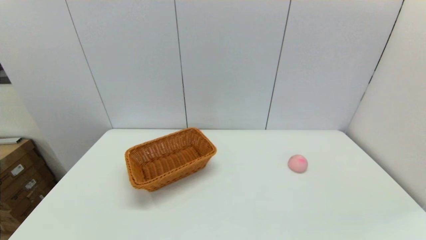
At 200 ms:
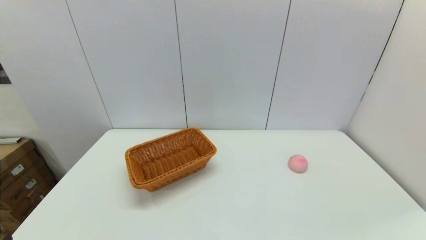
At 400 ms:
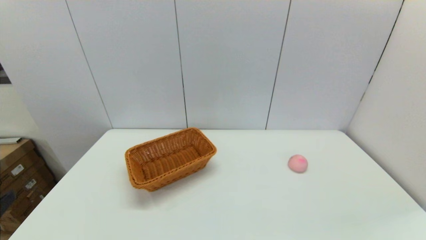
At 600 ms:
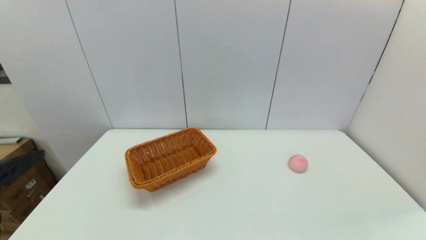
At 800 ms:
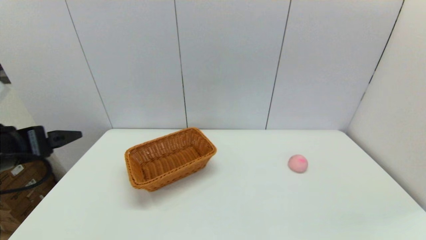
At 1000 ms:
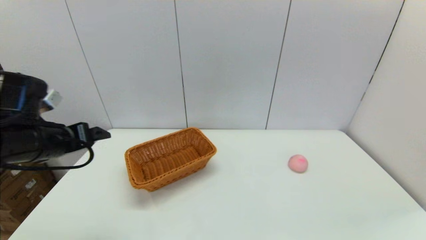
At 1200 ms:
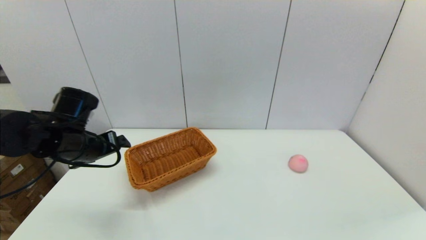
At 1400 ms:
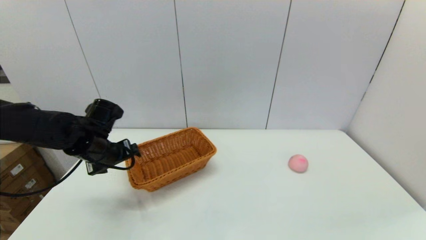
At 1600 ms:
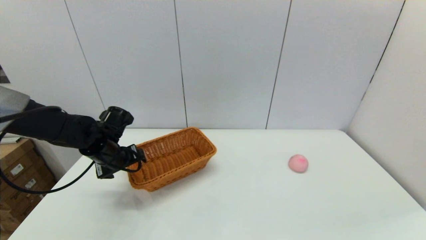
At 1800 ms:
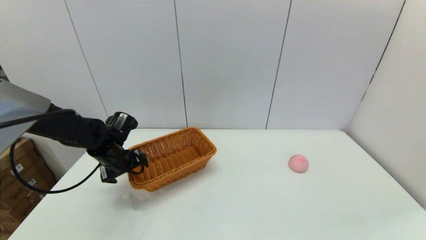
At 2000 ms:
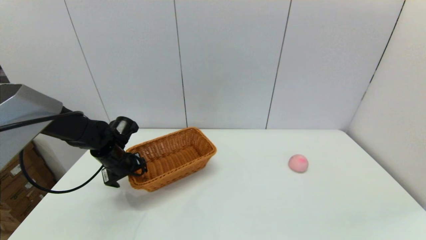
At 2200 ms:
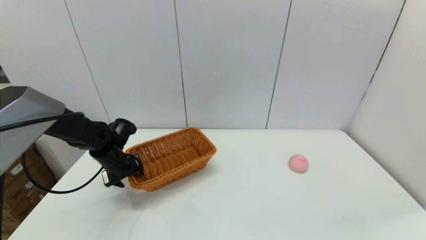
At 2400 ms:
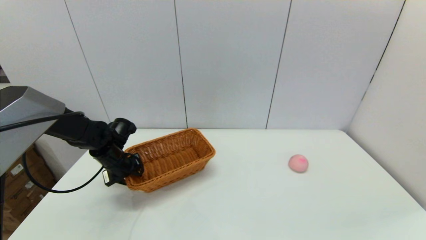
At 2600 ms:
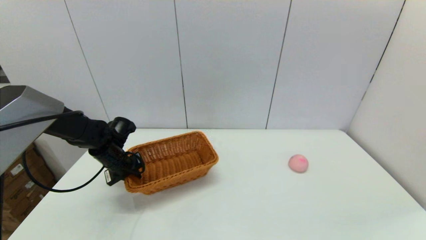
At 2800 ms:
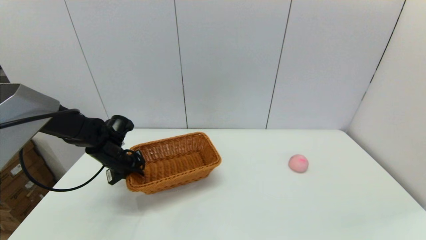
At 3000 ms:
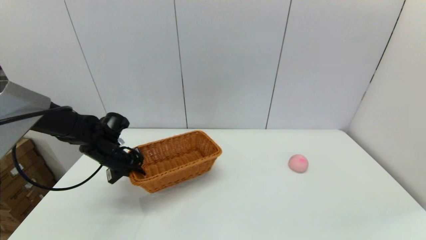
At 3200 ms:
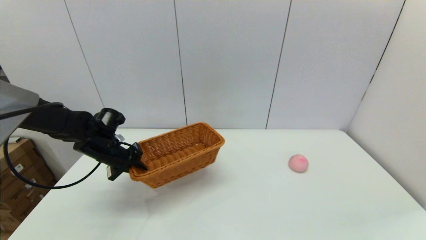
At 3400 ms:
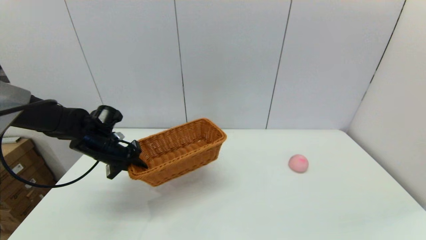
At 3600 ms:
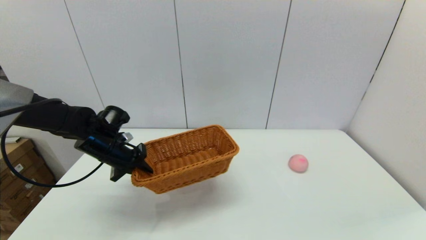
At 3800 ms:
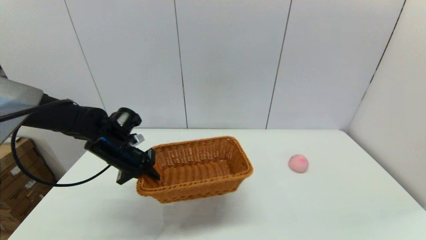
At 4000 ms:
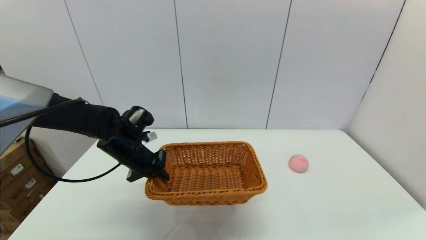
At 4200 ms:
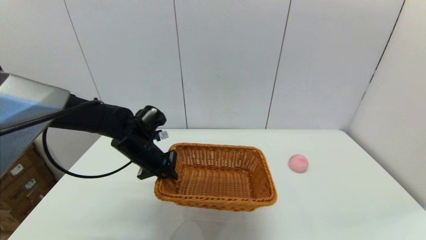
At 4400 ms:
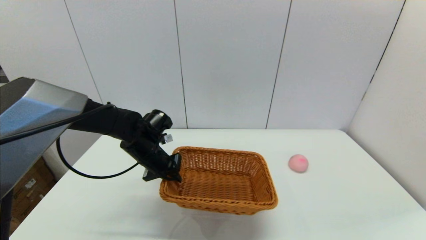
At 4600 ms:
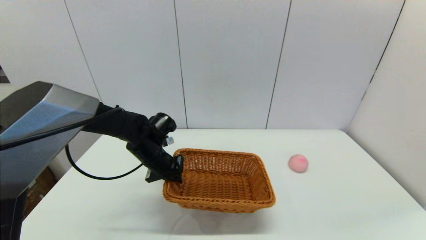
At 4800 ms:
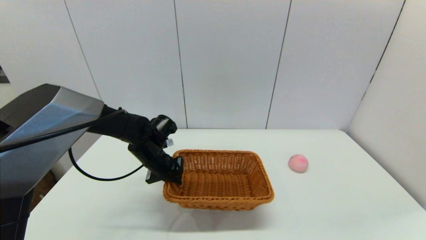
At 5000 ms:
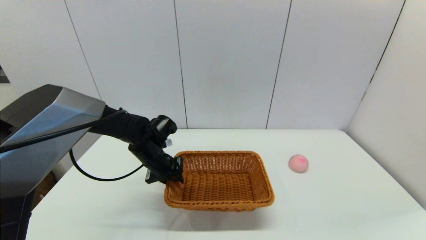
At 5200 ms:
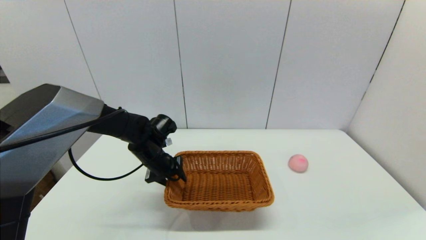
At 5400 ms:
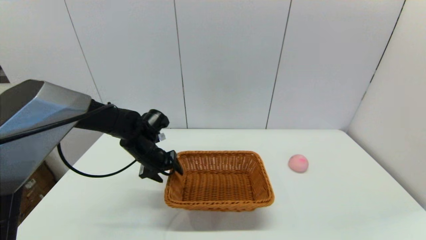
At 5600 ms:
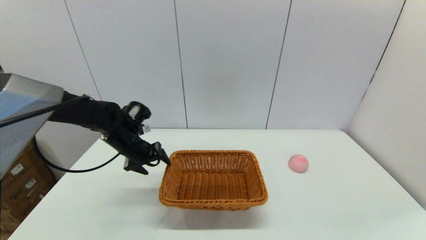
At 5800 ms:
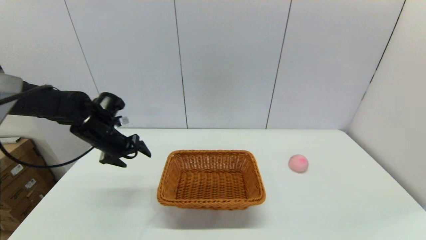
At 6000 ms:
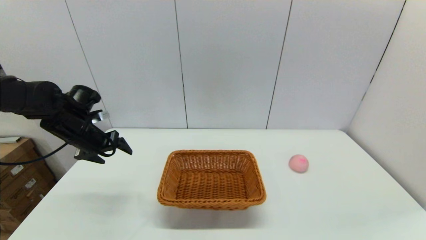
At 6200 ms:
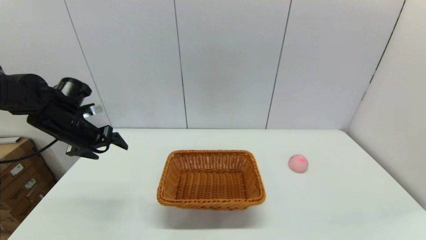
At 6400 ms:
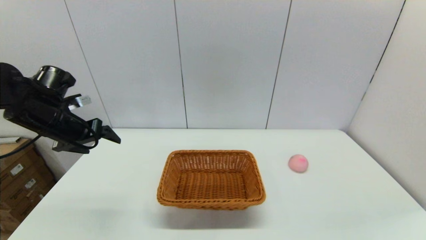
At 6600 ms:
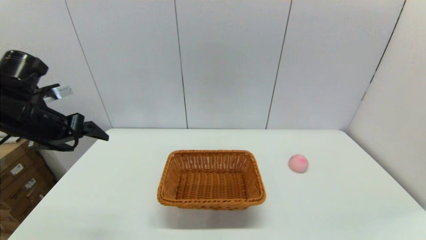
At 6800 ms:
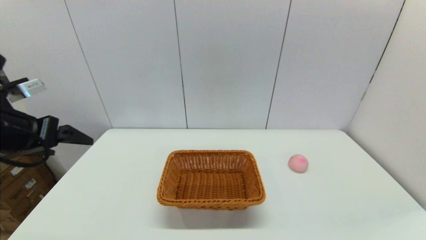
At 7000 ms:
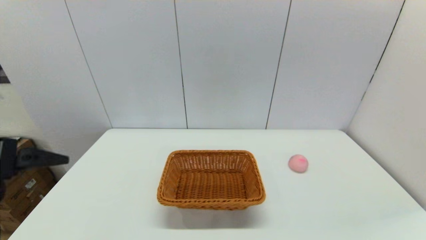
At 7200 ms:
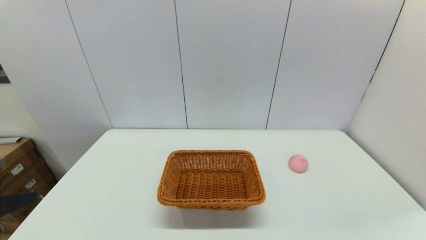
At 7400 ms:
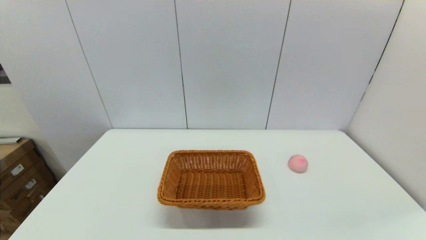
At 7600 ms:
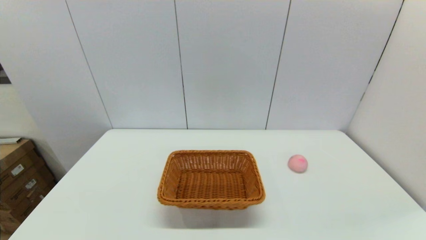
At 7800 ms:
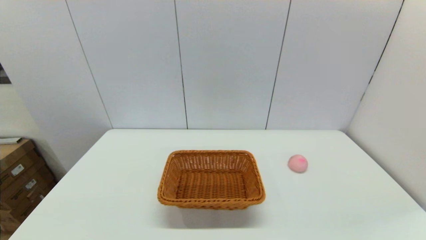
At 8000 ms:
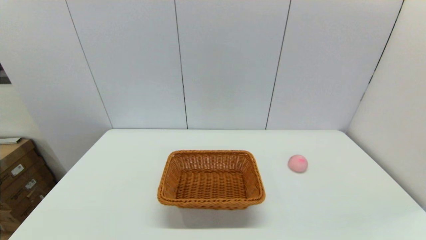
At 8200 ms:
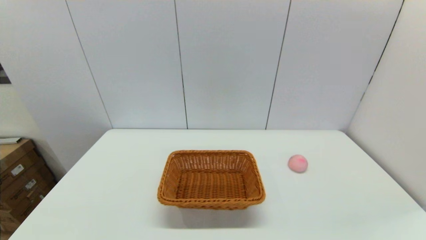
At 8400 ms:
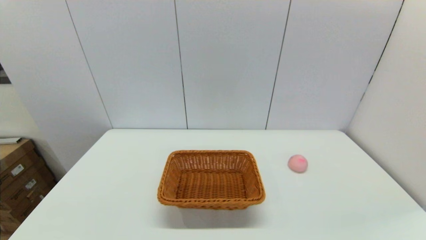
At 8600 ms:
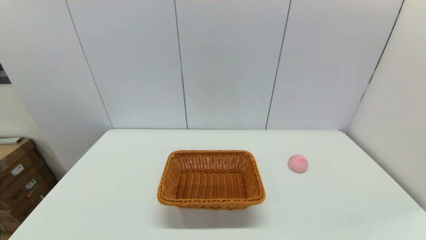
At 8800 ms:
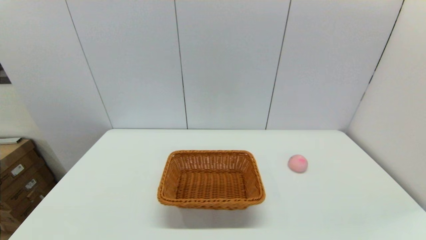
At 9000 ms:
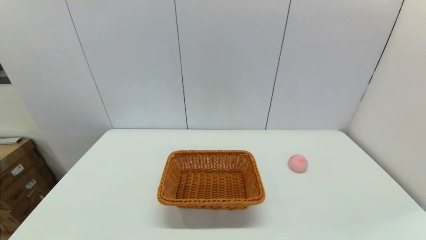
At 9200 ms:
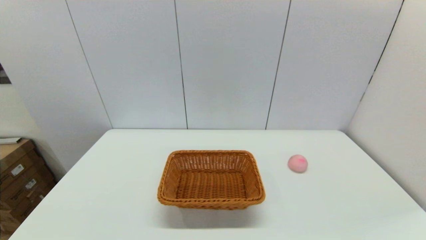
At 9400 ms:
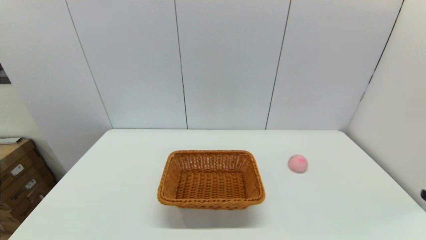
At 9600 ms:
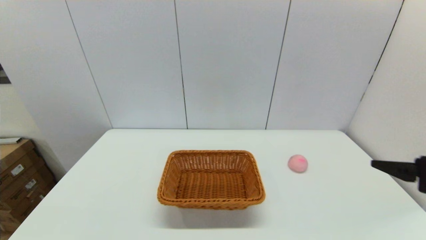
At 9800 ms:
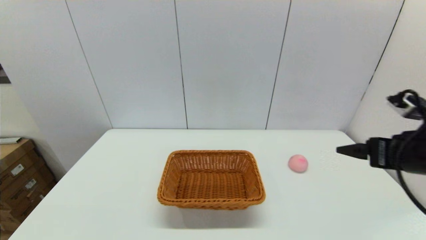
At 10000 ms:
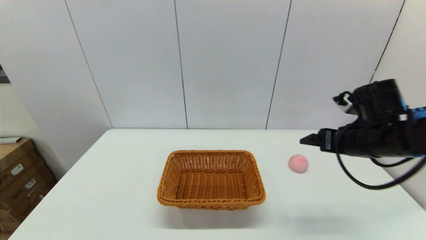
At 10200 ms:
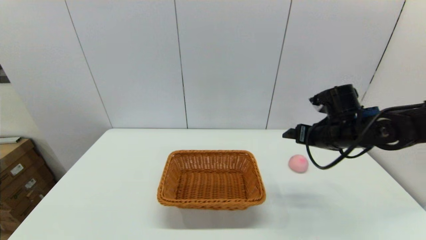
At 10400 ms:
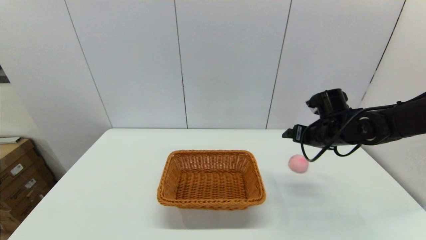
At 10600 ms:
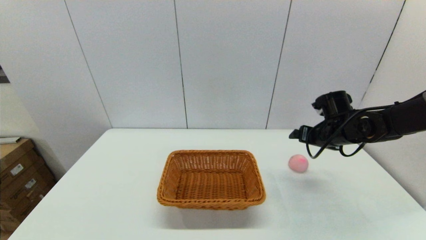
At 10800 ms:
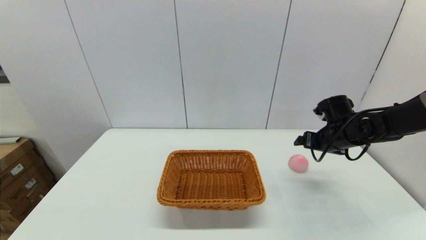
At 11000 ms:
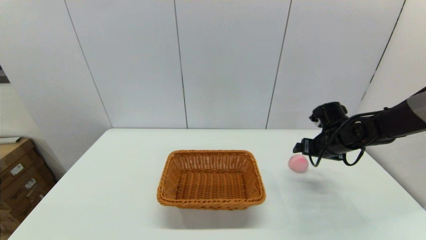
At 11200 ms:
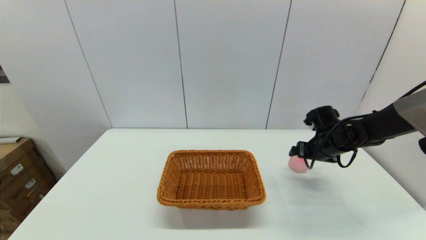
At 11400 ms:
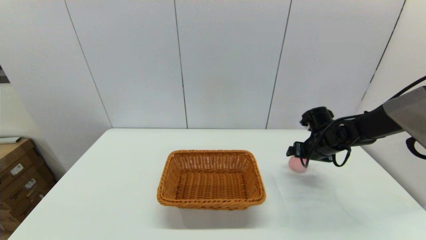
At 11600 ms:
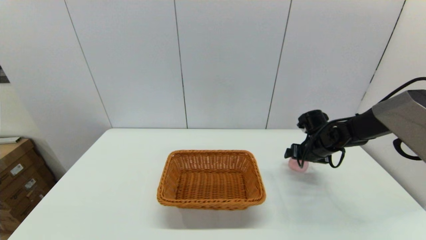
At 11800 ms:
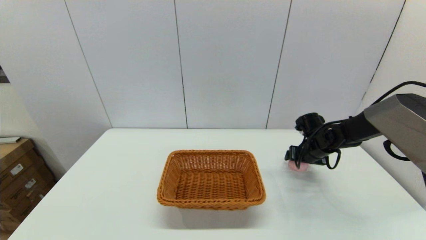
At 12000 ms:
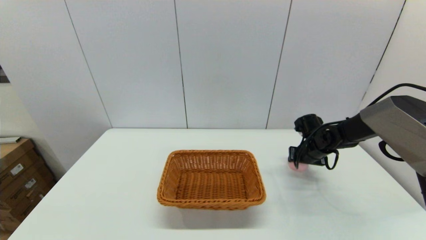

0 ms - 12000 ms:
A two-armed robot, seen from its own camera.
Step, 0 ms - 2600 ms: Grasp the light basket with the left gripper.
Step, 2800 ms - 5200 ms: Place the light basket on the middle of the table with the left gripper.
0 ms - 1600 ms: The left gripper goes some 35 cm forward.
1600 ms - 3000 ms: The left gripper closes up.
3000 ms - 4400 ms: The left gripper travels to the right by roughly 10 cm.
4400 ms - 6000 ms: The left gripper is displaced to the left and upward by approximately 15 cm, and opens up.
6000 ms - 7600 ms: The left gripper travels backward by about 35 cm.
9000 ms - 10400 ms: The right gripper shifts roughly 40 cm forward.
10400 ms - 12000 ms: The right gripper travels downward and forward by approximately 10 cm, and closes its fingers.

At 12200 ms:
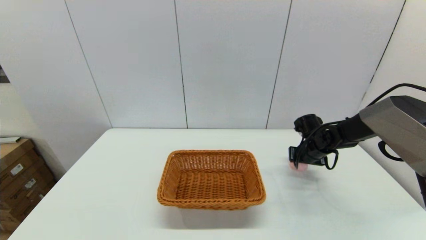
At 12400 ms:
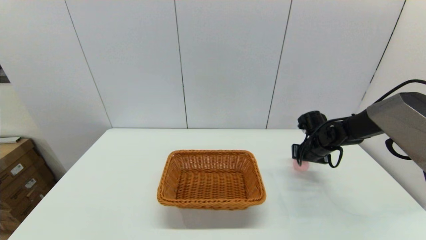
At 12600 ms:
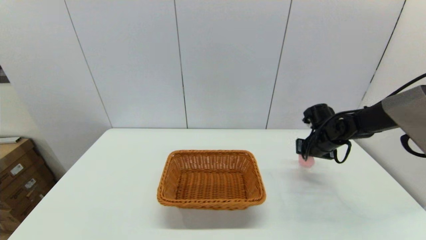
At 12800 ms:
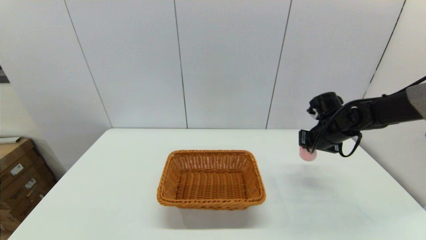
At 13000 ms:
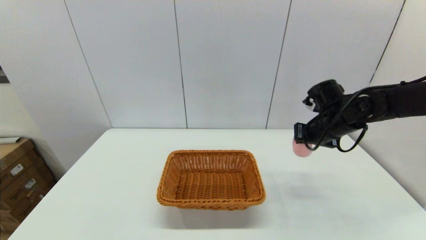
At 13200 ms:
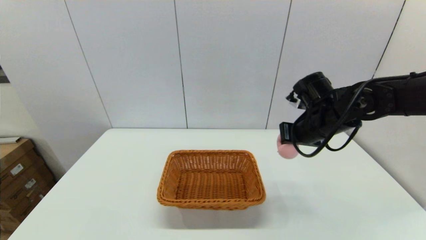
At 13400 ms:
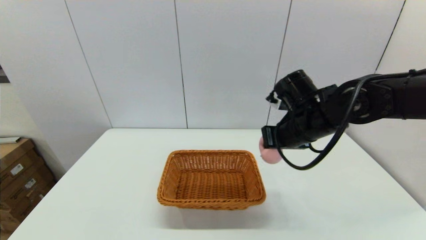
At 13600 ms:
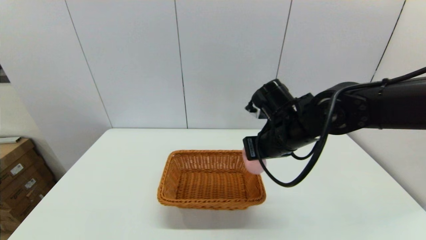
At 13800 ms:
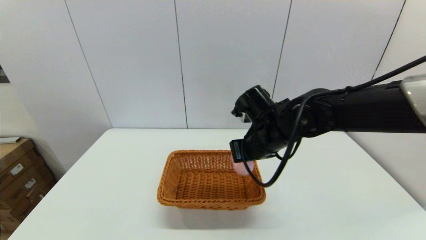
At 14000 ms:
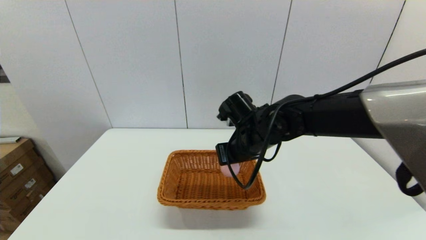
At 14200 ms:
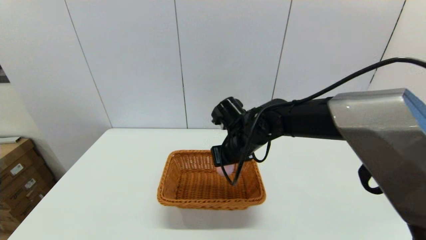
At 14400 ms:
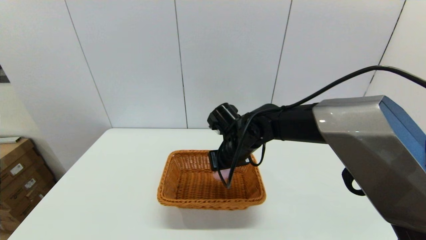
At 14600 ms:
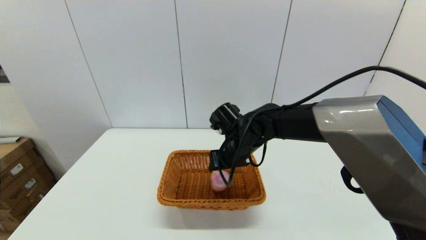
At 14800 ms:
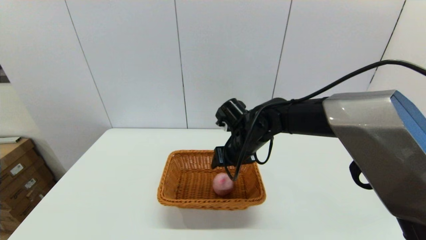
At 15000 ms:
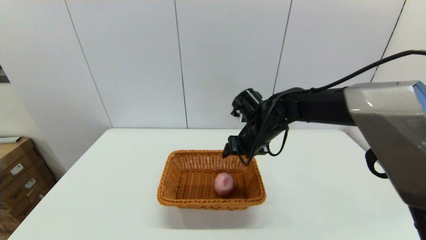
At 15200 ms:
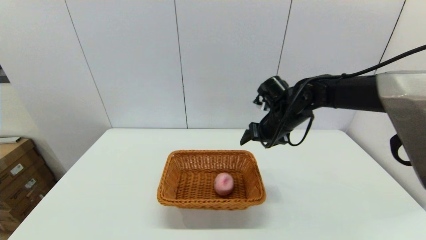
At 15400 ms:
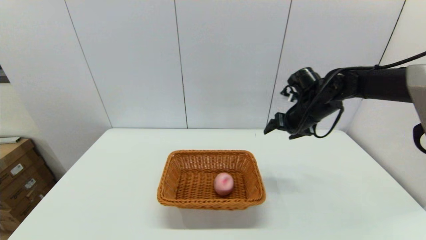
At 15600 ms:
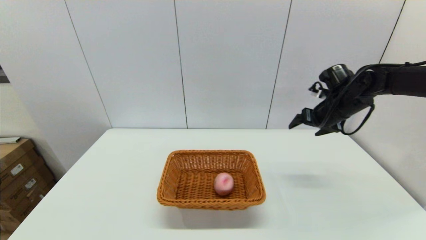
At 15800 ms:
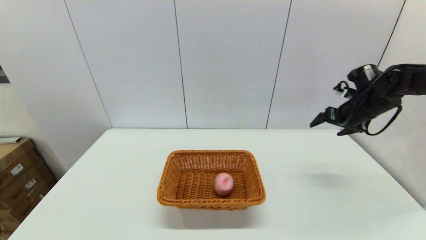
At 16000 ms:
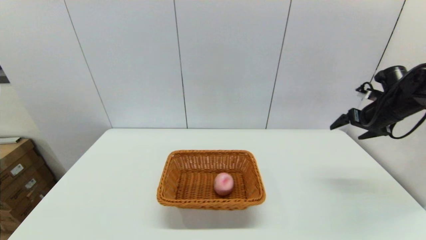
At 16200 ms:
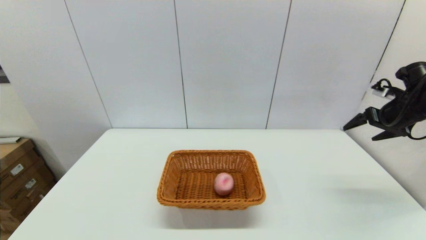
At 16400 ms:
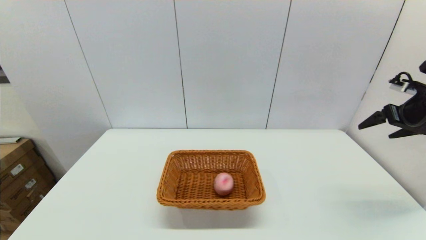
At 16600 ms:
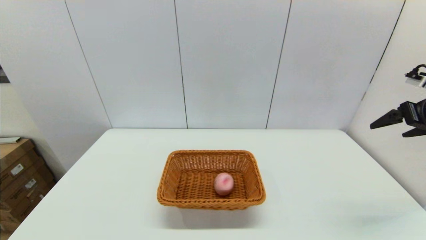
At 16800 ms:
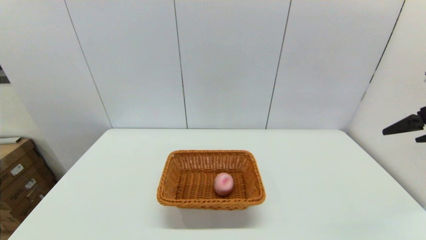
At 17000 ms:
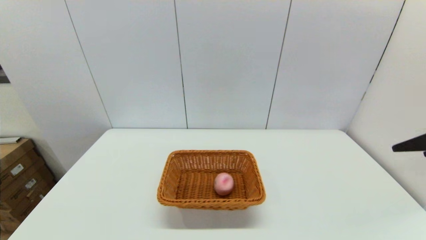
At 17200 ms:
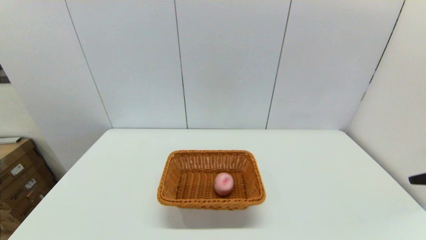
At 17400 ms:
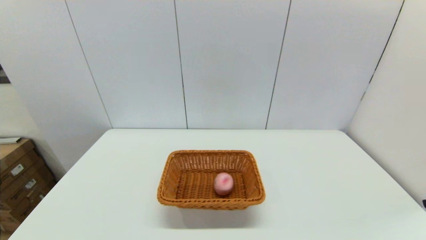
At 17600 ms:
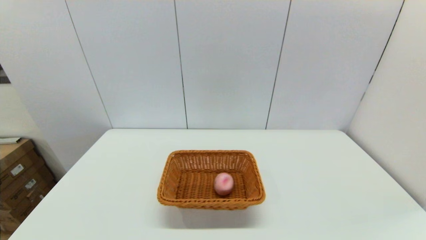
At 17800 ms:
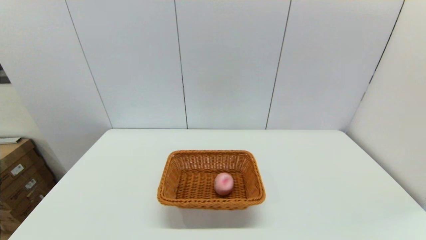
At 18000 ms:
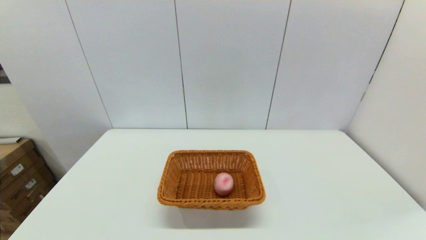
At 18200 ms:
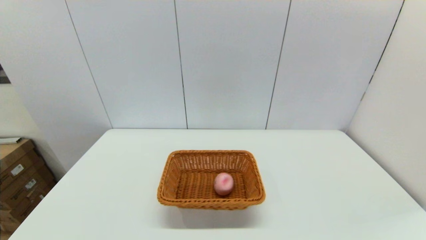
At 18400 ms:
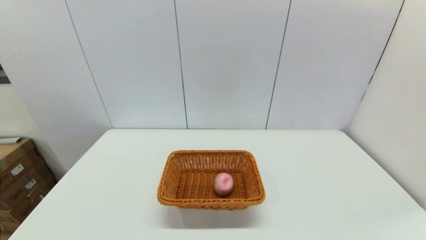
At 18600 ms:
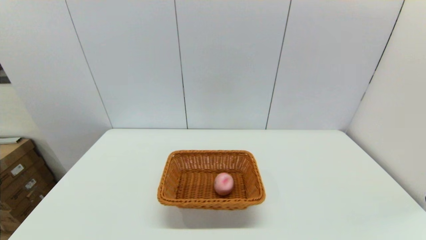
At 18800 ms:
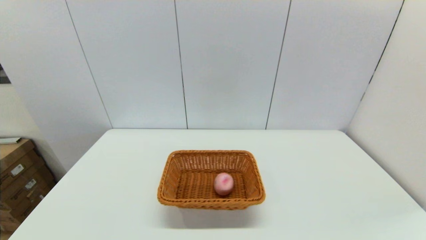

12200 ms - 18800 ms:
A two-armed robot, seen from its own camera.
Step, 12600 ms - 14800 ms: Place the peach into the light basket with the right gripper.
12200 ms - 13800 ms: The right gripper heads to the left, upward and backward, covering some 25 cm.
13800 ms - 15400 ms: The right gripper moves to the right and forward, about 20 cm, and opens.
15400 ms - 17200 ms: The right gripper heads backward, covering approximately 30 cm.
